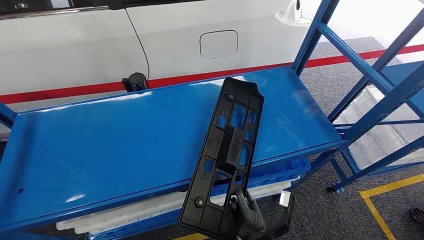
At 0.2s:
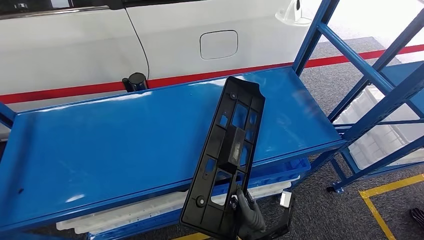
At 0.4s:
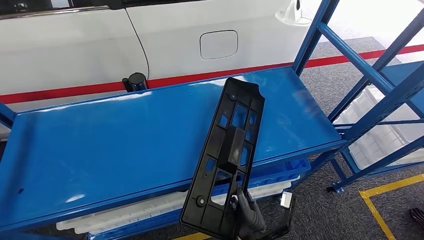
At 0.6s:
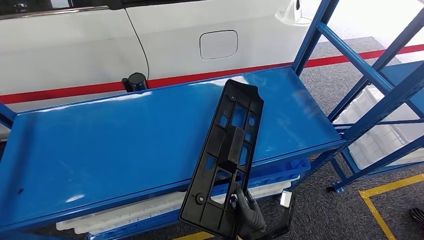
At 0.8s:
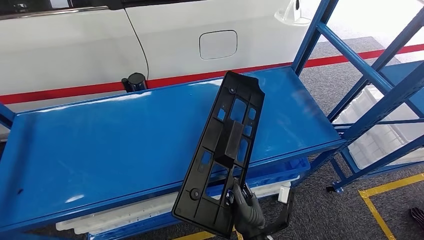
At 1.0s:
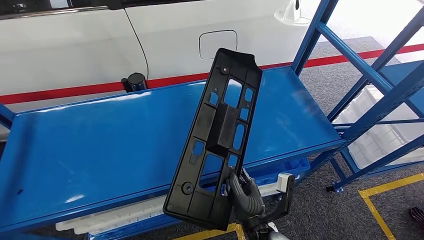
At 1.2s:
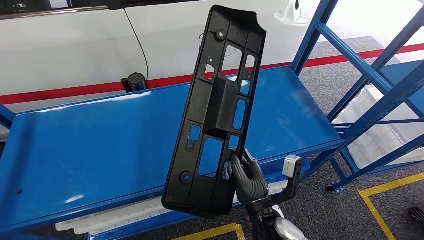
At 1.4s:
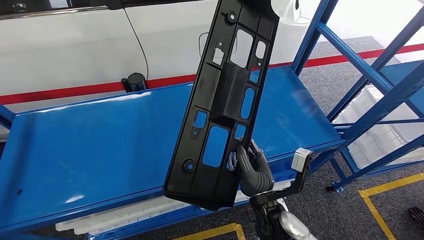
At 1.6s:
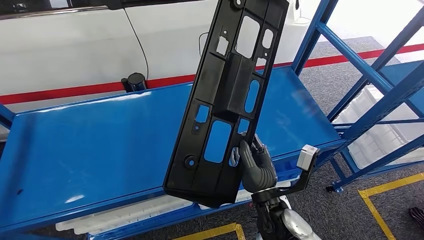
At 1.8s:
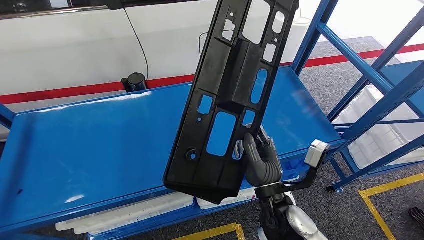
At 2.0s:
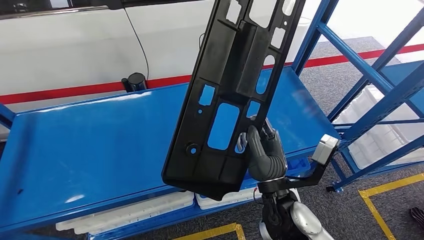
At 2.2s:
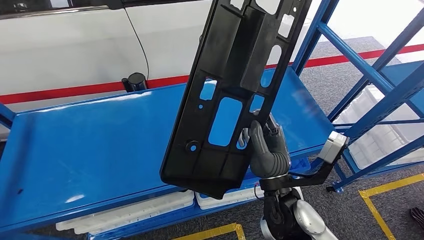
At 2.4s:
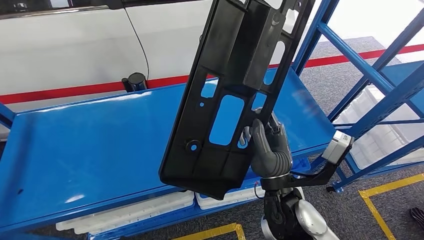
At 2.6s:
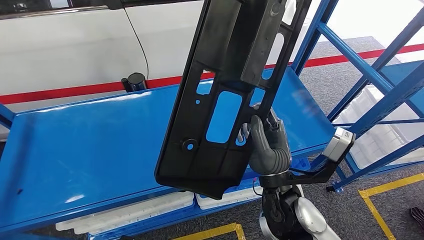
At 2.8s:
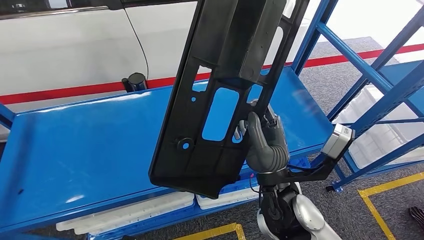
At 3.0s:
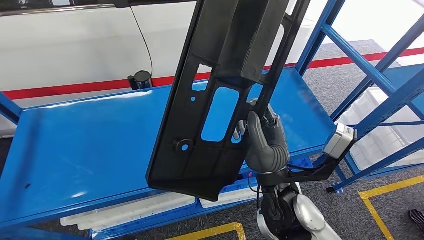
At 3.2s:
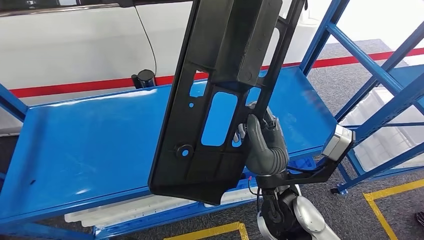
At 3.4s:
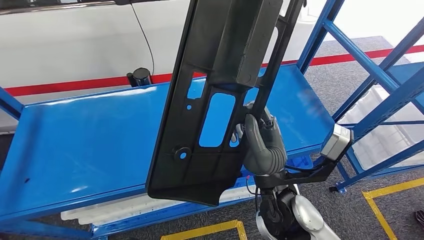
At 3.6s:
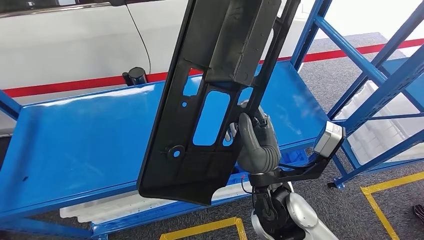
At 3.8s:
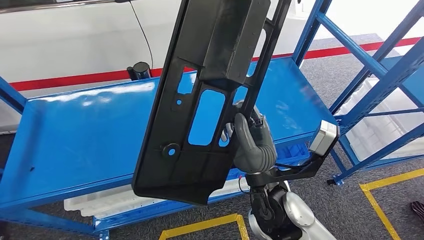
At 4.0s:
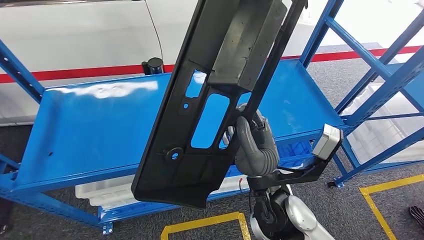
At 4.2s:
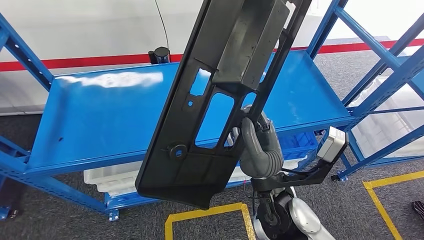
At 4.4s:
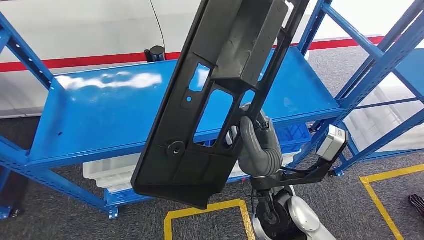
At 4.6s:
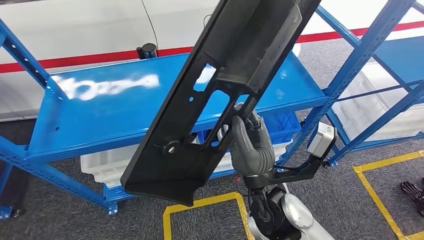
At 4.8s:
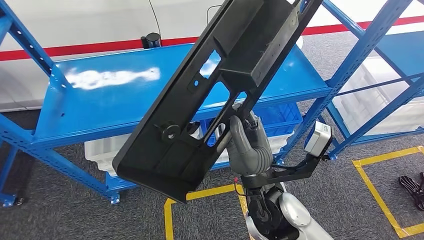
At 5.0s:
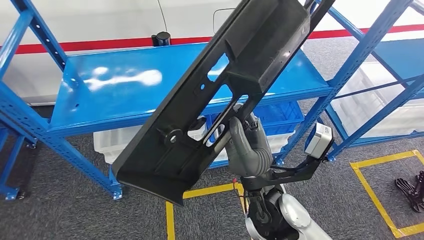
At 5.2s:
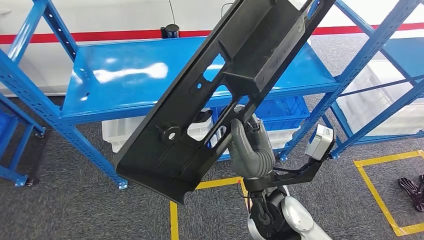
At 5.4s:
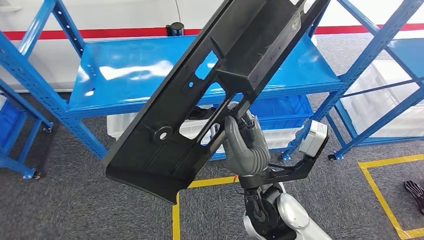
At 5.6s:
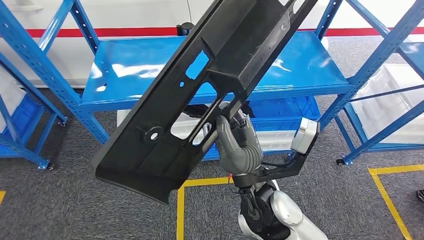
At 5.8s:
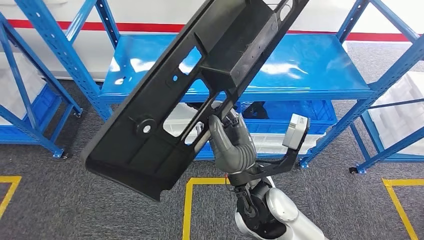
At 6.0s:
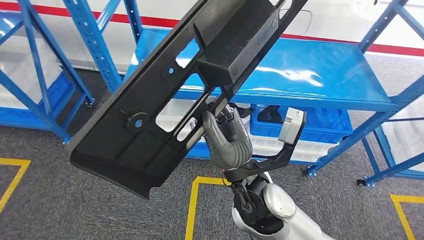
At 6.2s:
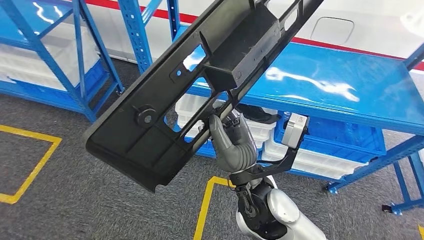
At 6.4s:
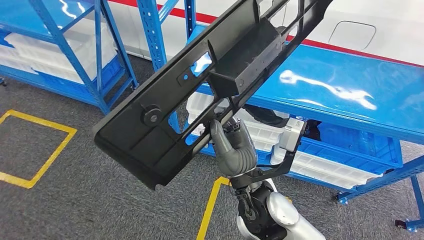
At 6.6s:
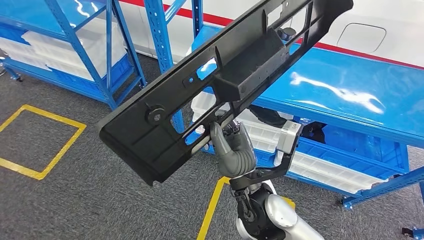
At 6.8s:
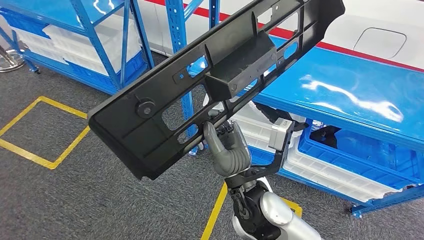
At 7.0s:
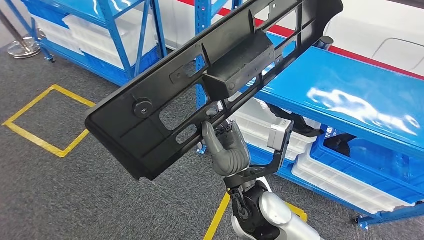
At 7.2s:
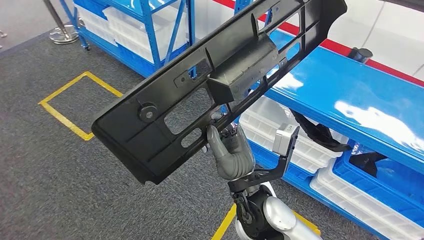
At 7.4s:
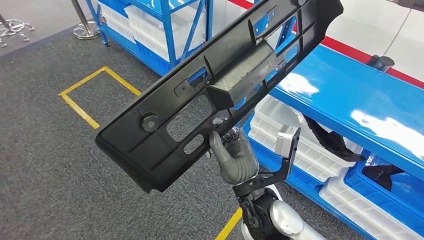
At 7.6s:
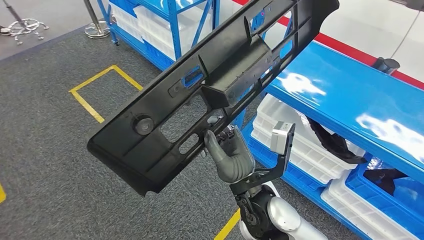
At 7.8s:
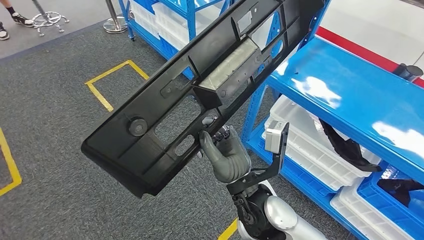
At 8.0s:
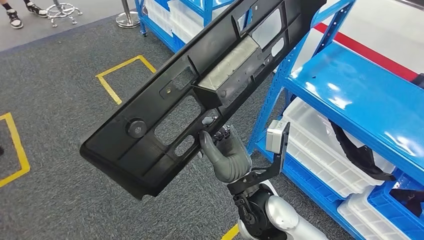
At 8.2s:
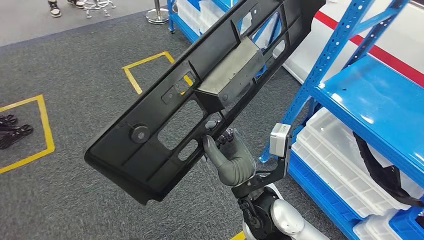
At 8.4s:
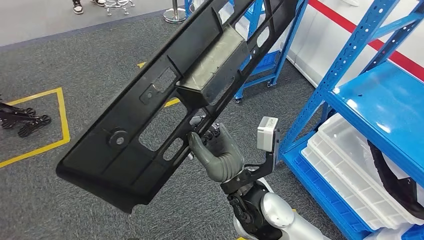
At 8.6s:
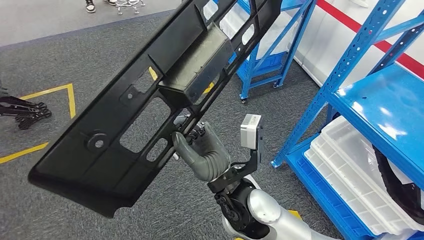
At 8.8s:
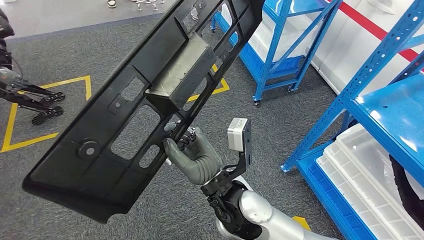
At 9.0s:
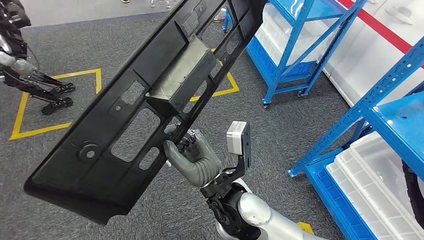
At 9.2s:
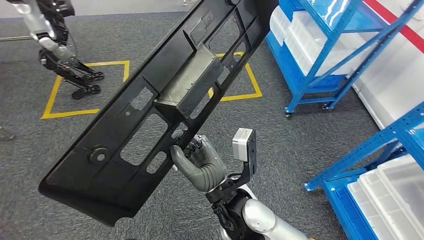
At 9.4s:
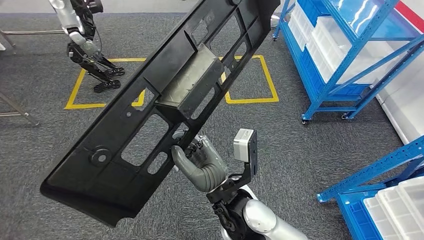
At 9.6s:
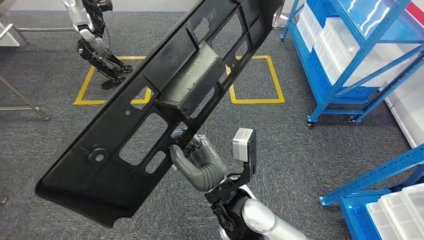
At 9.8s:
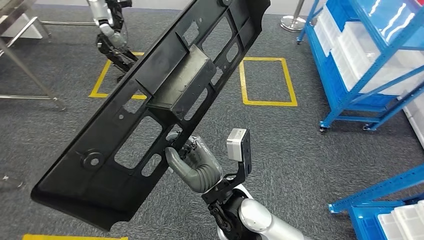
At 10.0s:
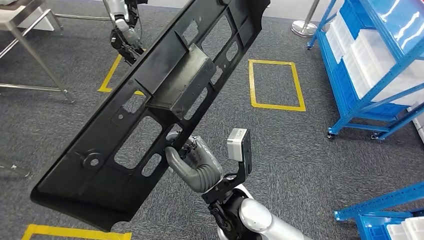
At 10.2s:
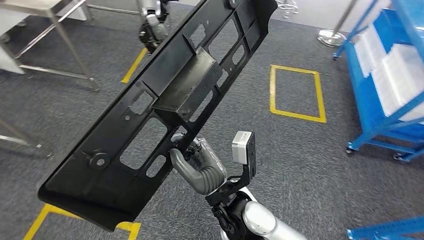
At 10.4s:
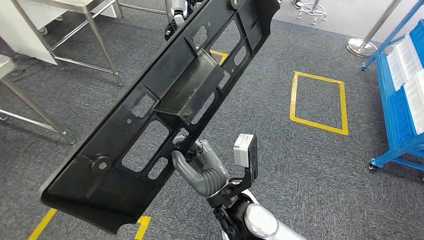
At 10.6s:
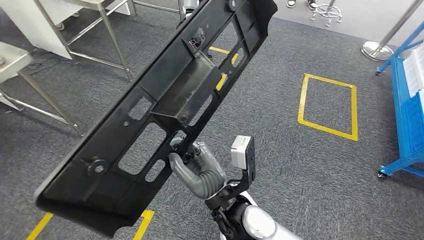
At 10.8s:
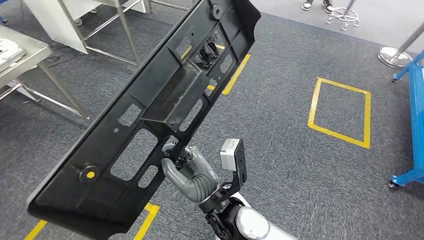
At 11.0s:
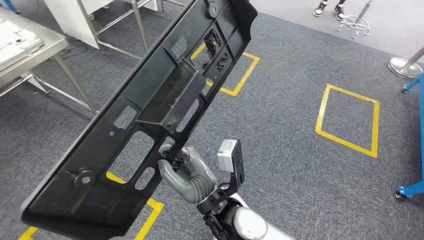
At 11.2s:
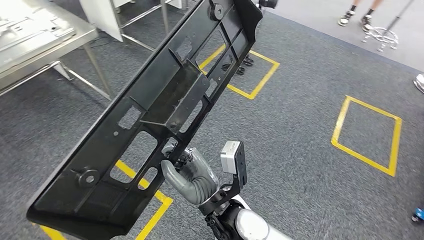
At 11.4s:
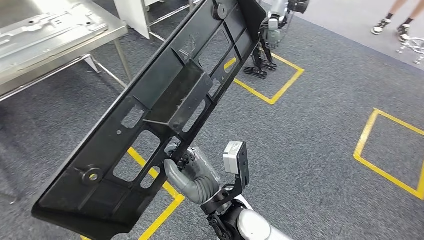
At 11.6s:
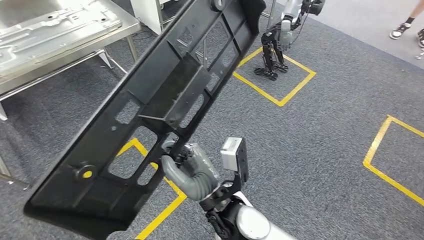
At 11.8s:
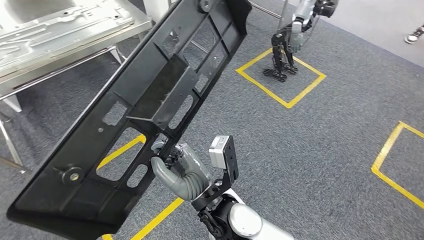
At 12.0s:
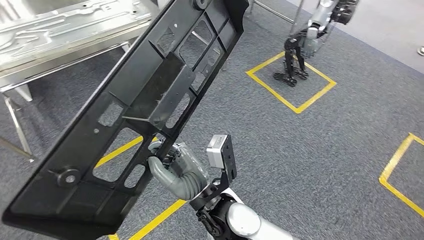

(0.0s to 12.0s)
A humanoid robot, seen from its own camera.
Step, 0.0s - 6.0s: Pick up the large material from the shelf.

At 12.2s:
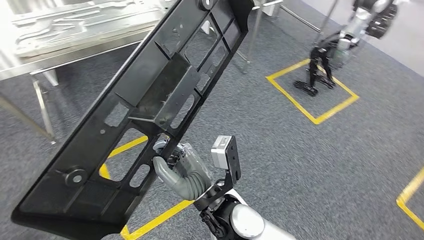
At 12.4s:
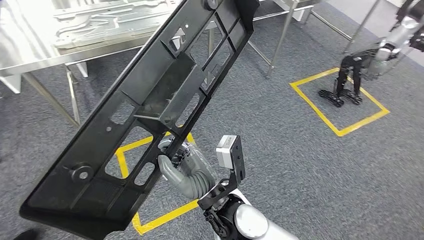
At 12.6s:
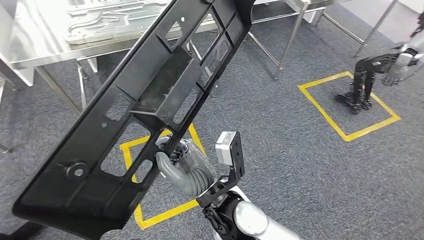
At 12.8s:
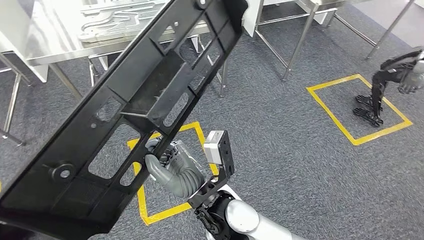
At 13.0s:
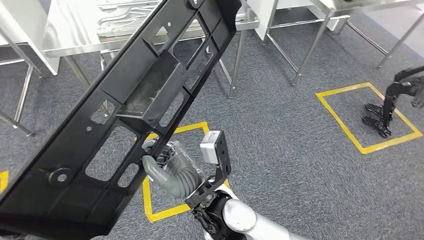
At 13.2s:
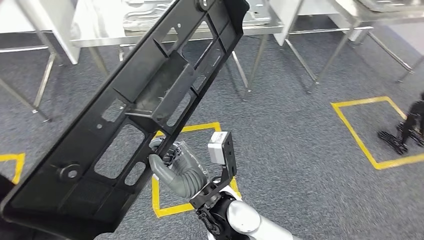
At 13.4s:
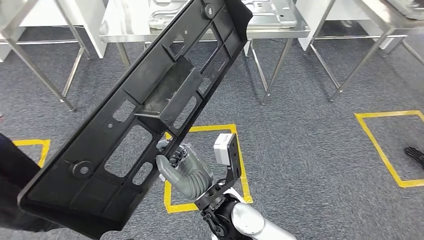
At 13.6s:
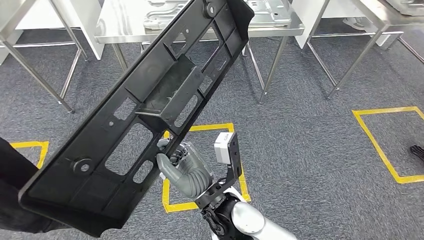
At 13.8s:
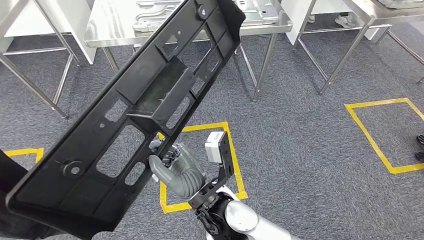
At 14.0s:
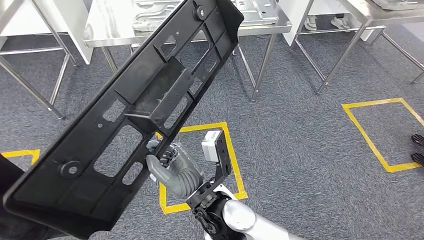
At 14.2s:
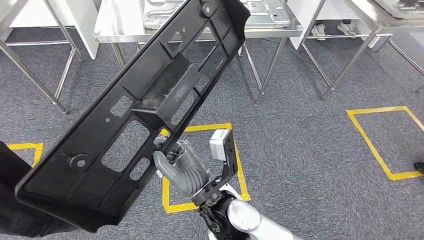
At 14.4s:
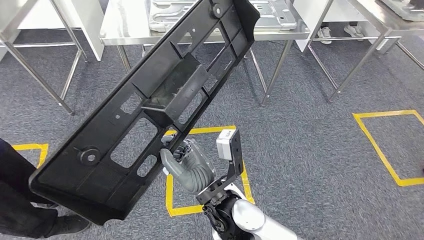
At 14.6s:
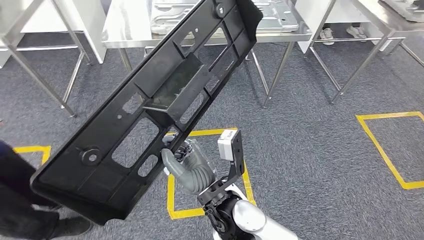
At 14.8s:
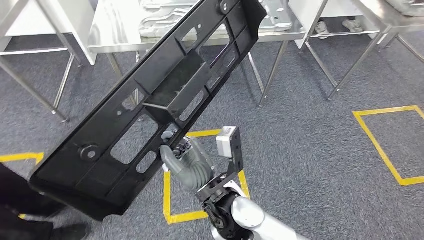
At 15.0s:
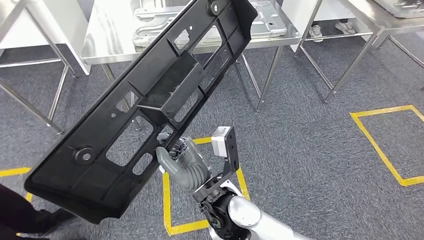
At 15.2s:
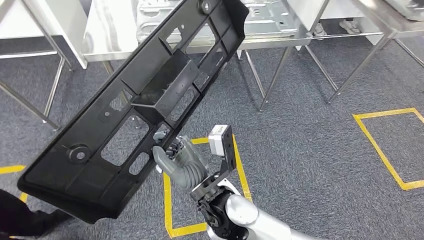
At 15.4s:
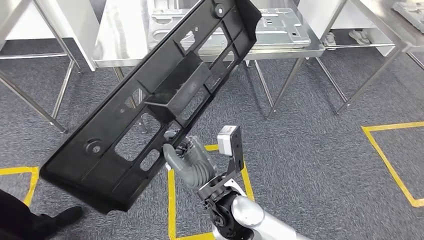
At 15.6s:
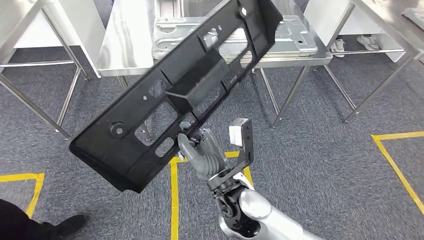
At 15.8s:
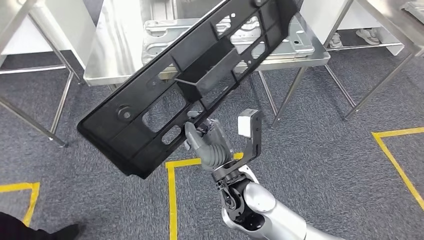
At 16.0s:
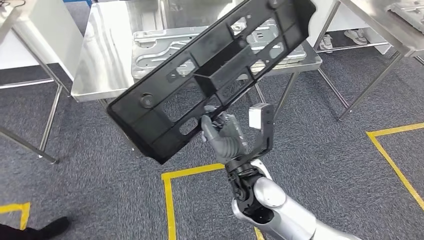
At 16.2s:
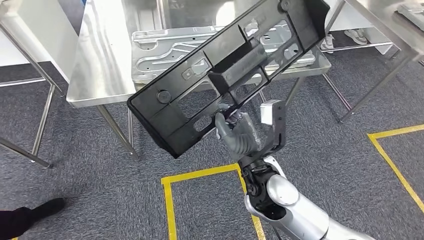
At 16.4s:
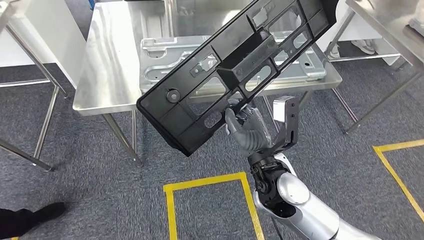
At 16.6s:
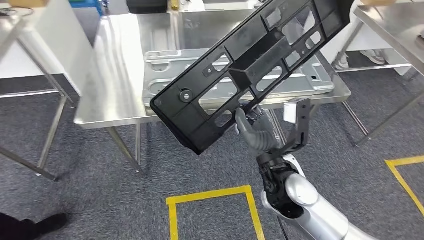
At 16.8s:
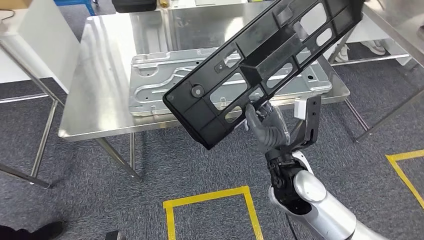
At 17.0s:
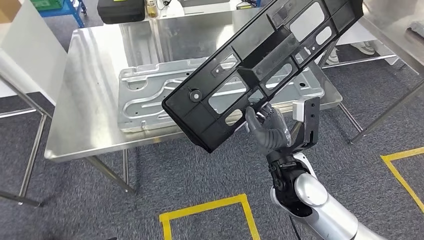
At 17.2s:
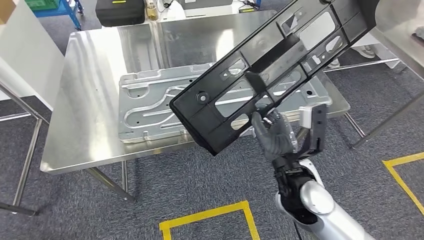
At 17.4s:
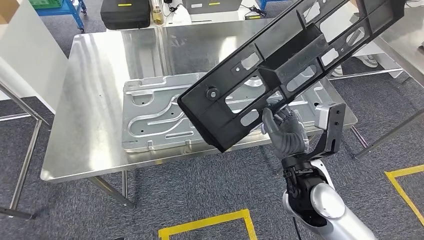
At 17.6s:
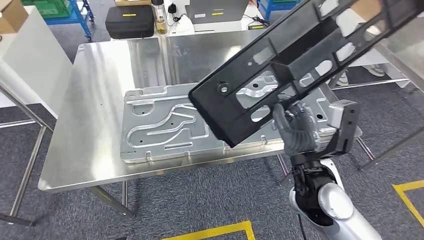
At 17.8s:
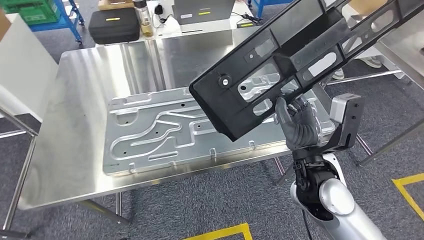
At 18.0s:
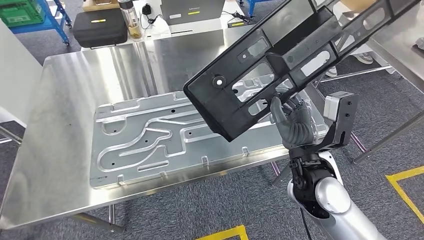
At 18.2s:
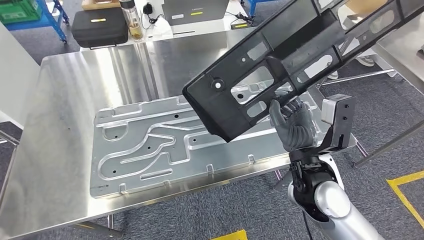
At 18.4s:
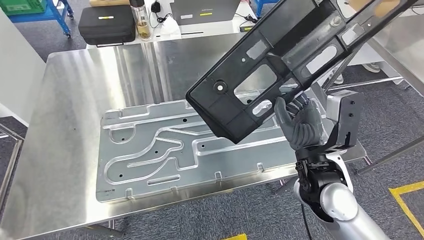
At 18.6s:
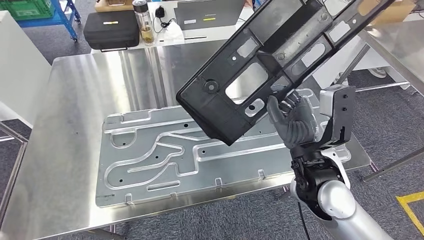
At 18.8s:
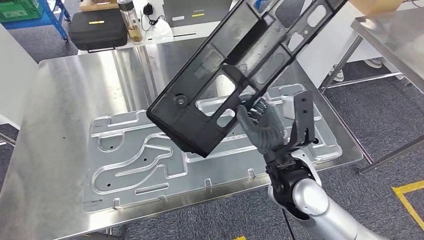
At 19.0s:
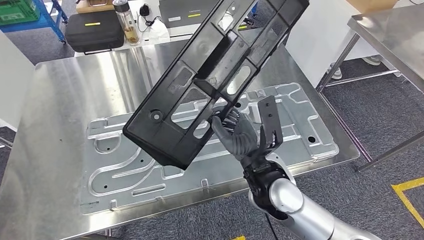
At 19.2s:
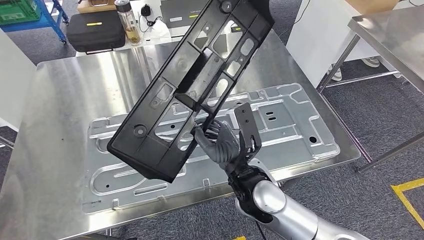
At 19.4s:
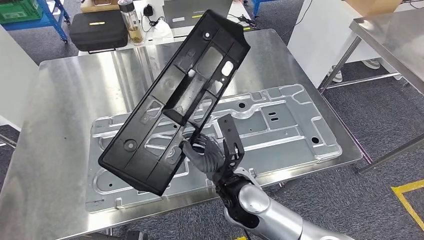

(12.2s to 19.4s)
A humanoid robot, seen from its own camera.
Step, 12.2s - 17.2s: Move the large material to the front of the workbench.
